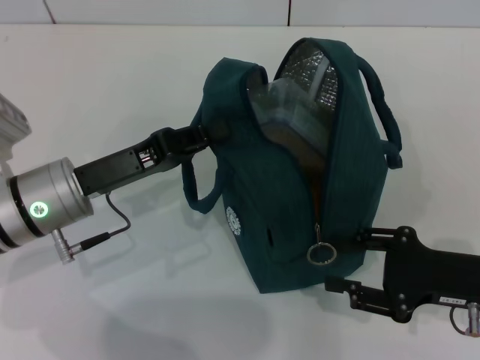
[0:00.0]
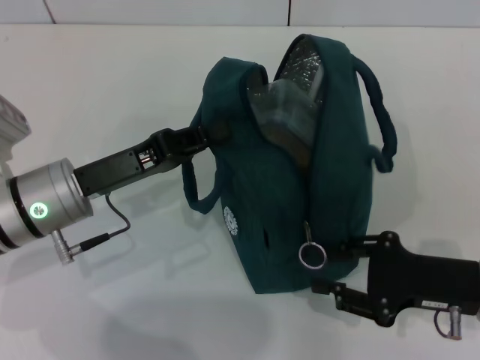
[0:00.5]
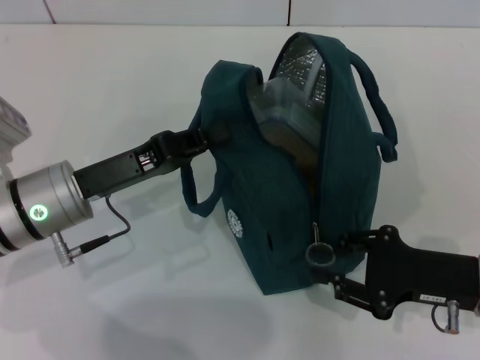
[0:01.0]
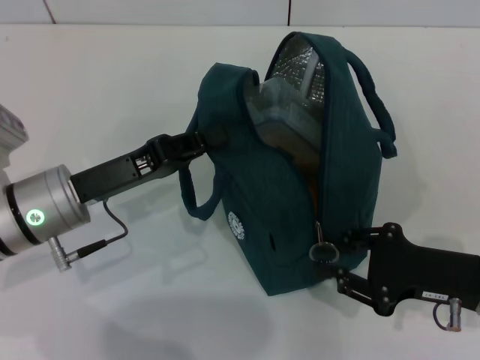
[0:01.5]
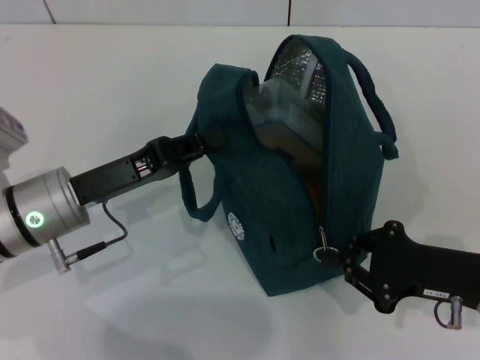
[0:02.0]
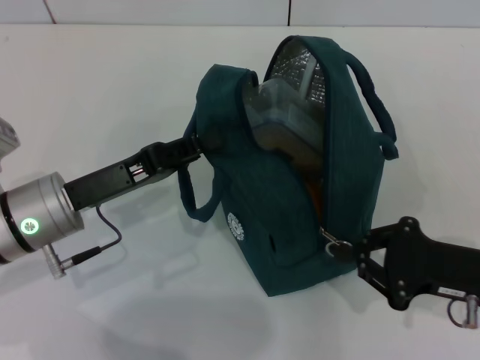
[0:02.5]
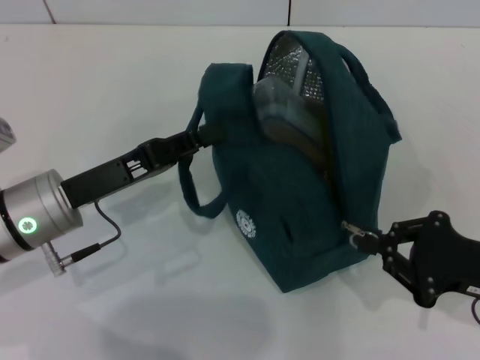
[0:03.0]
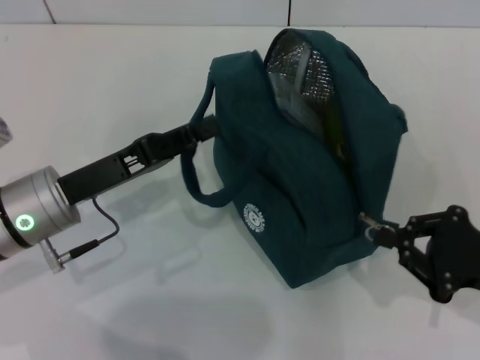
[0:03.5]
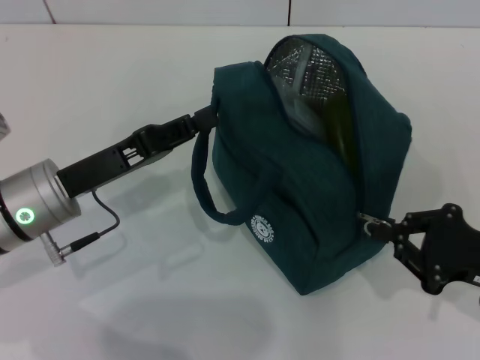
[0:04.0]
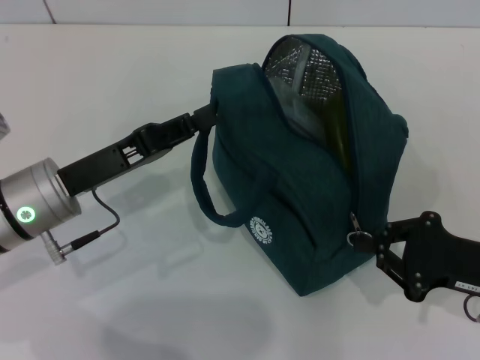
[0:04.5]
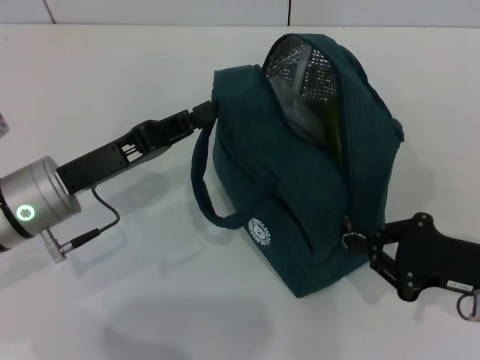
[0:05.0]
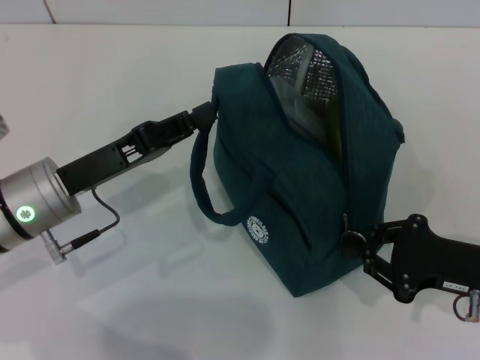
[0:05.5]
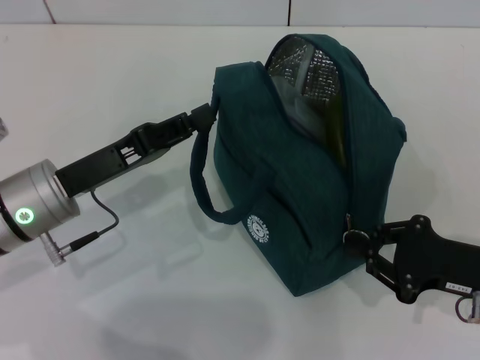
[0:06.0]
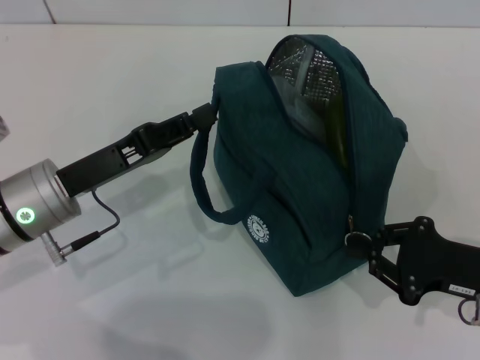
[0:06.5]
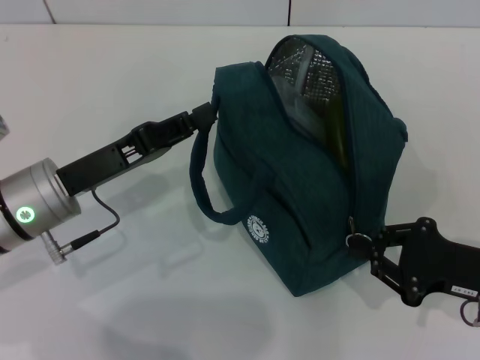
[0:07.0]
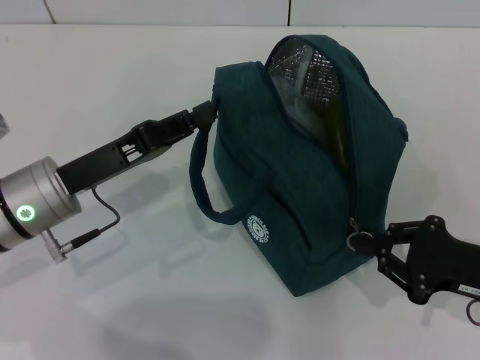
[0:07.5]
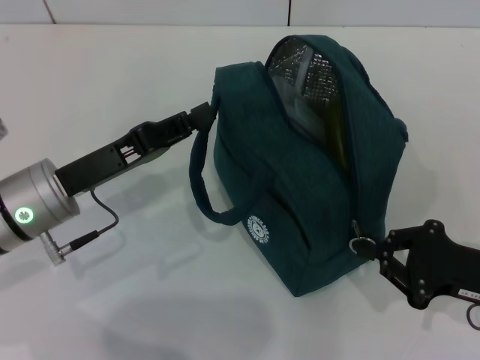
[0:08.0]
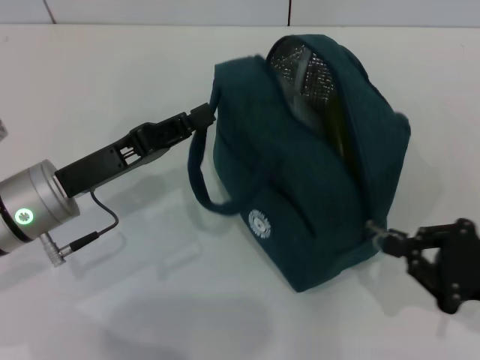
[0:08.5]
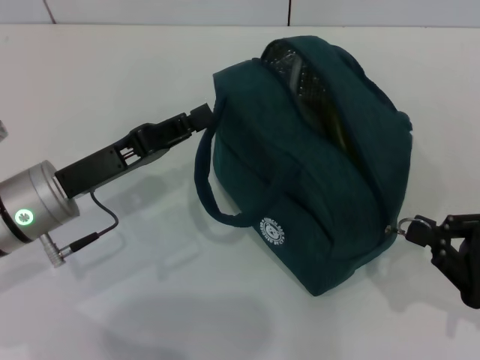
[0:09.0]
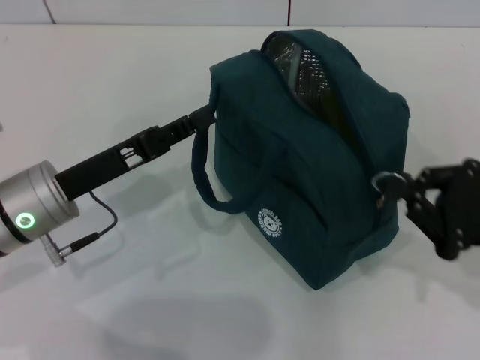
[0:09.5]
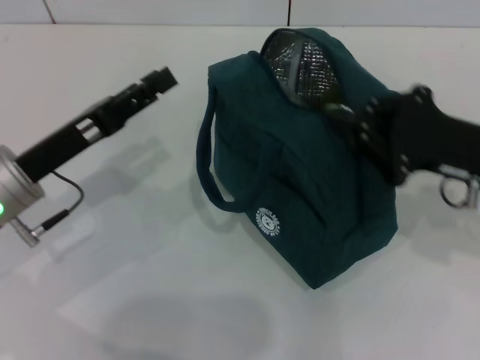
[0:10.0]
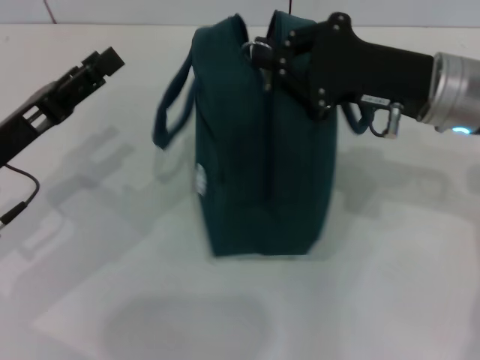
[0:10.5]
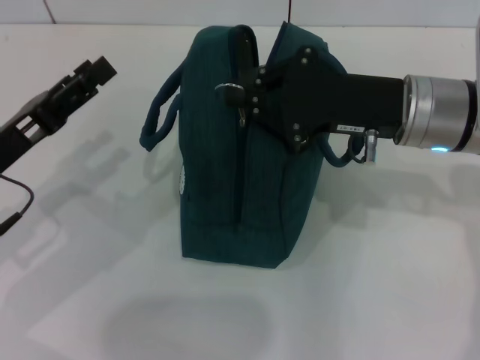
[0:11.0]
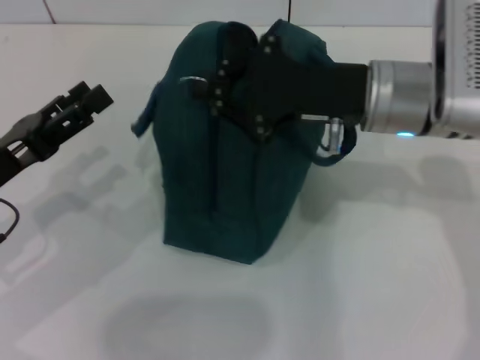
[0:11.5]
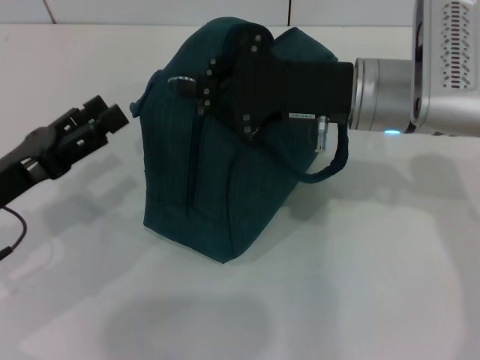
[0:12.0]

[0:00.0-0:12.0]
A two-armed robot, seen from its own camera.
Step, 0:00.0 to 0:03.5: Hold the lunch bag with your left hand.
0:00.0 to 0:02.0: The right gripper closes up.
0:02.0 to 0:06.0: The grippers move only a little.
0:06.0 to 0:08.0: Both grippers stay about where they are.
0:08.0 to 0:10.0: The right gripper travels upward and forward by roughly 10 cm; the left gripper opens its fingers.
0:10.0 to 0:12.0: The right gripper goes some 15 cm to the left. The left gripper moves some 5 cm, and opens its fingers.

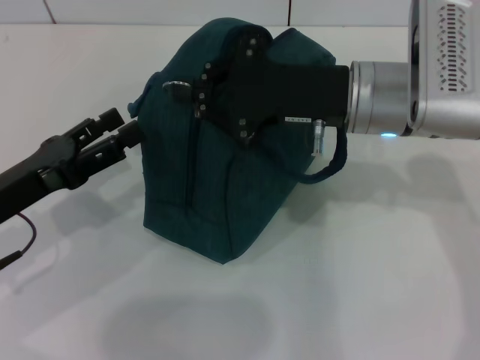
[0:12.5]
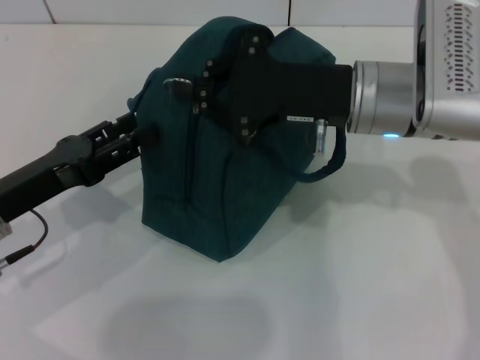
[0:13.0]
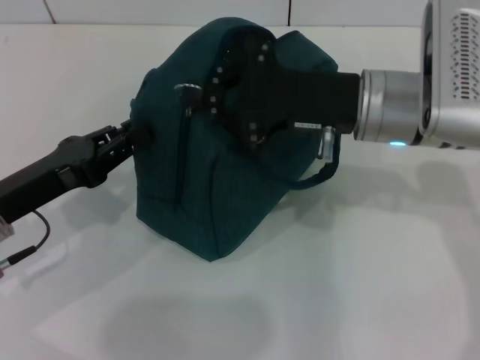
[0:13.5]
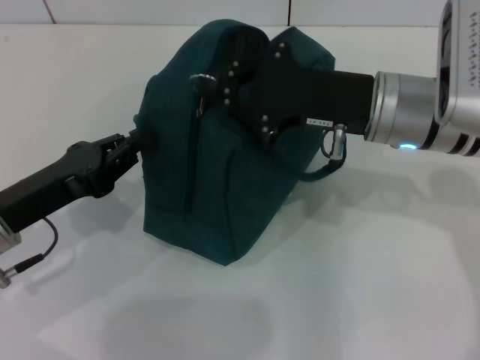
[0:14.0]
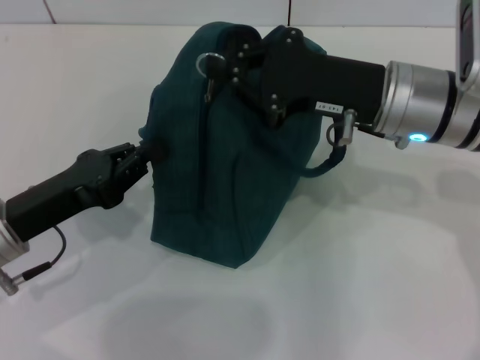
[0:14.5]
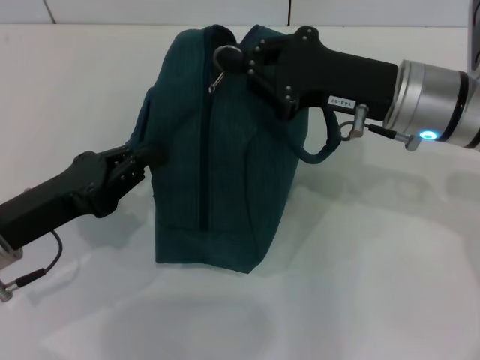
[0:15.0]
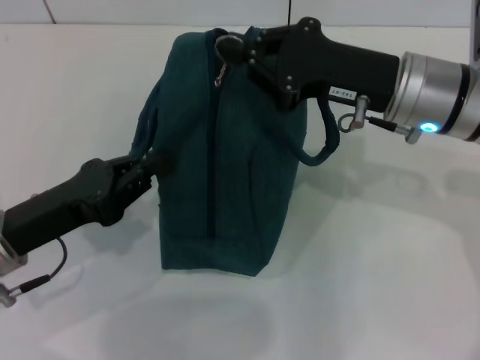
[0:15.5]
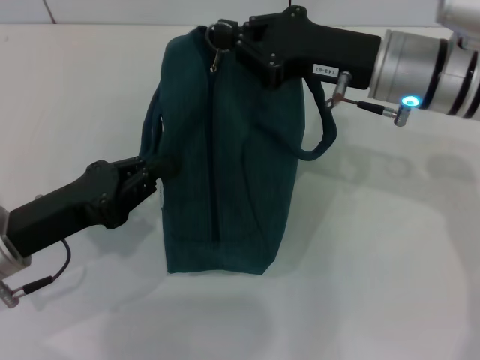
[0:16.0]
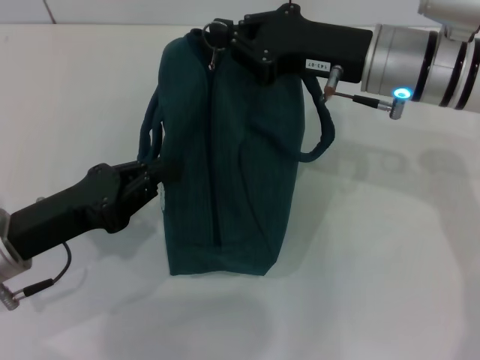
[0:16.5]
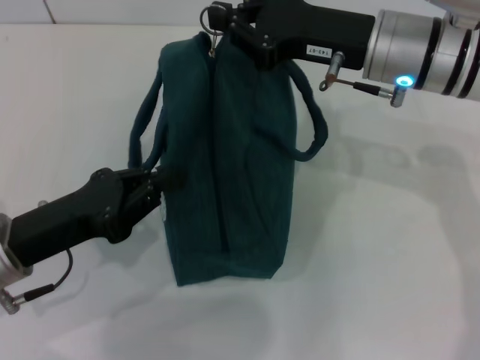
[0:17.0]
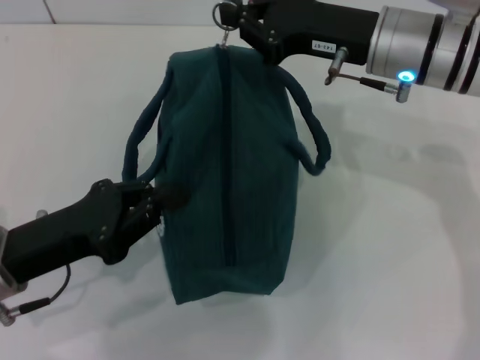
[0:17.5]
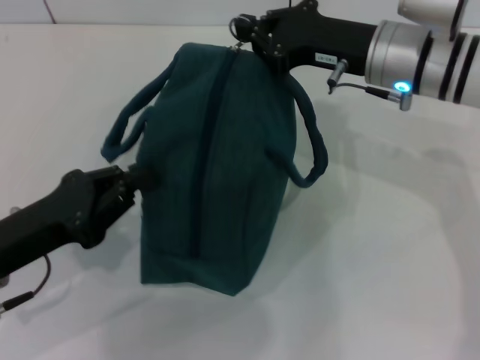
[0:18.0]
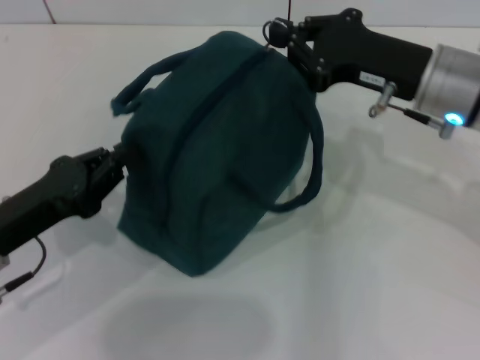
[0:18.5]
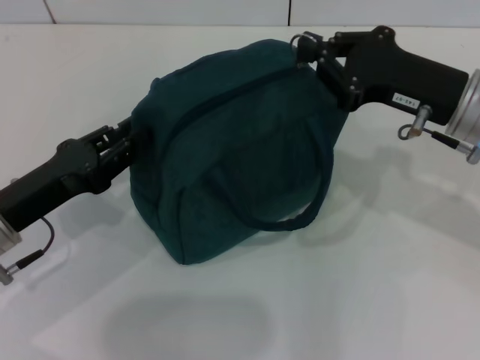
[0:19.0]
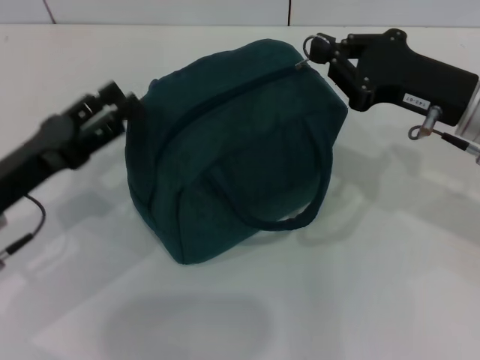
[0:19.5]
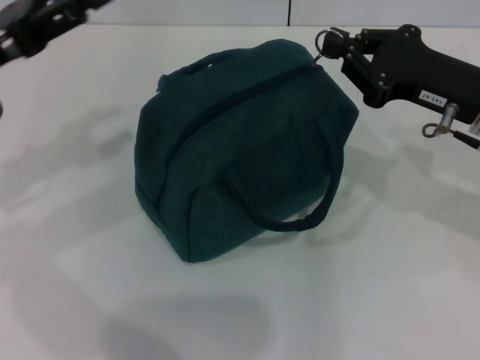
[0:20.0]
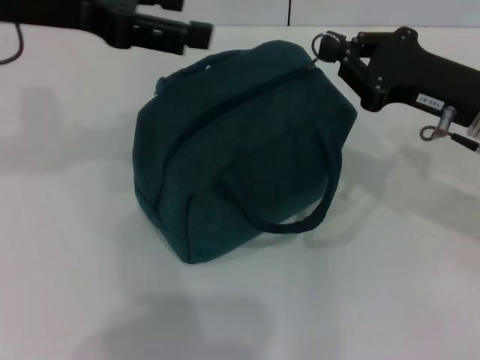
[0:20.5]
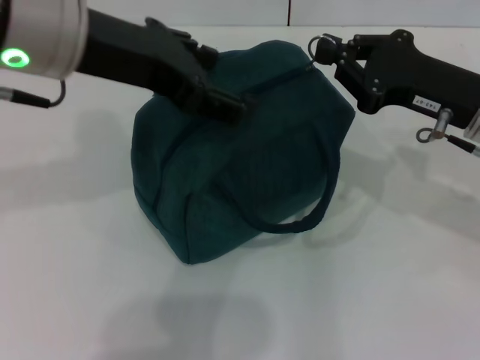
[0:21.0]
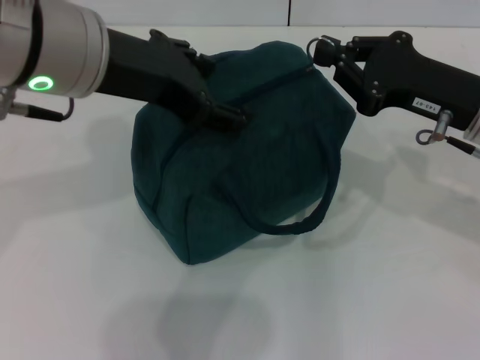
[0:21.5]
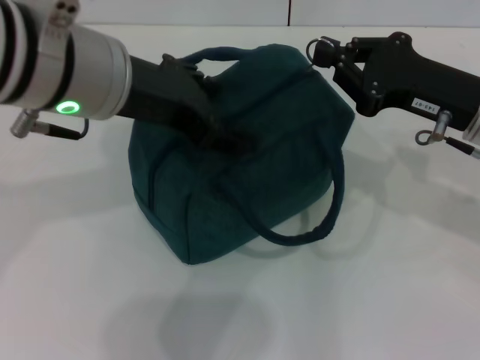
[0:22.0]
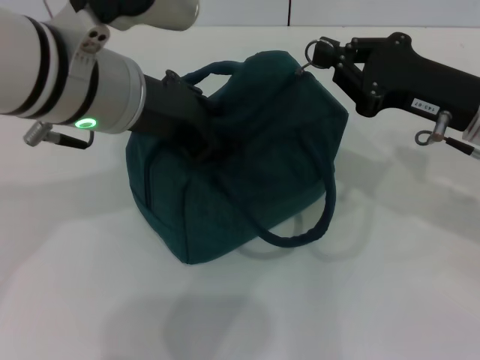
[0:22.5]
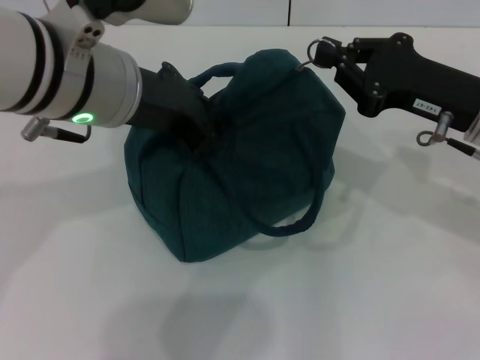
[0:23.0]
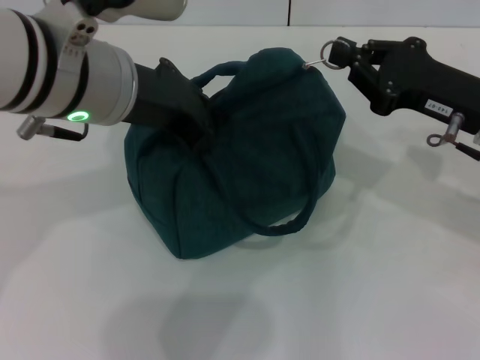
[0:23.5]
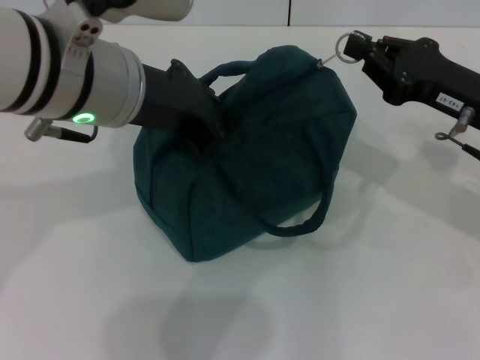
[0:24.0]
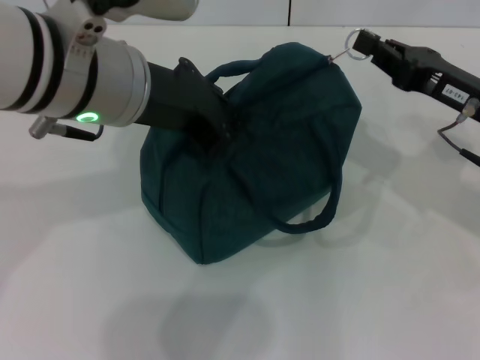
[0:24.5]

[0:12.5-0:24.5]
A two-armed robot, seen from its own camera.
0:12.5 to 0:14.5: The left gripper closes its fingers.
0:16.5 to 0:18.5: The right gripper changes place by roughly 5 cm.
0:18.5 to 0:20.5: The left gripper is displaced upward and forward by roughly 25 cm, and opens its fingers, while the right gripper moves roughly 5 cm.
0:20.5 to 0:22.5: The left gripper moves to the right, about 10 cm.
0:22.5 to 0:24.5: The left gripper closes.

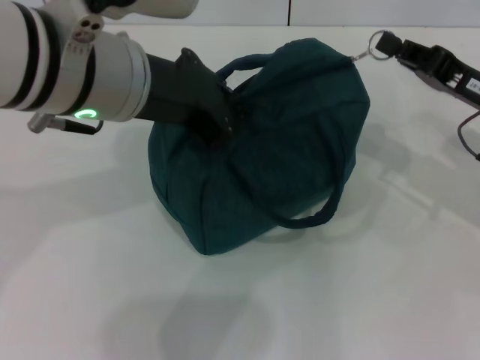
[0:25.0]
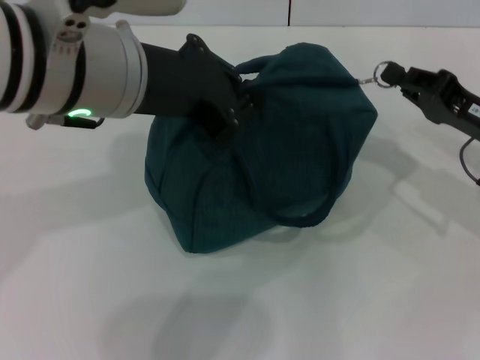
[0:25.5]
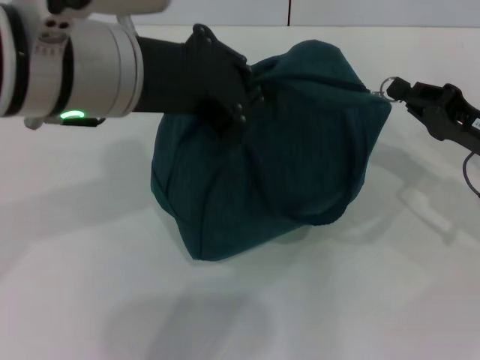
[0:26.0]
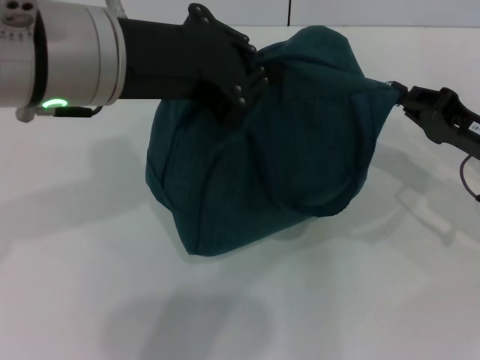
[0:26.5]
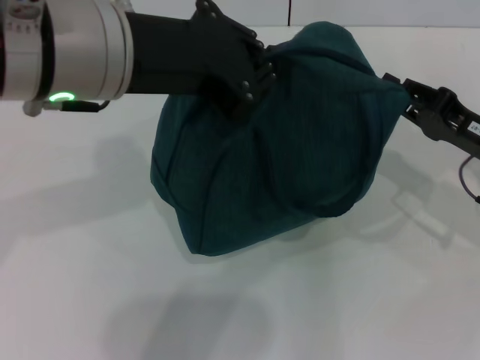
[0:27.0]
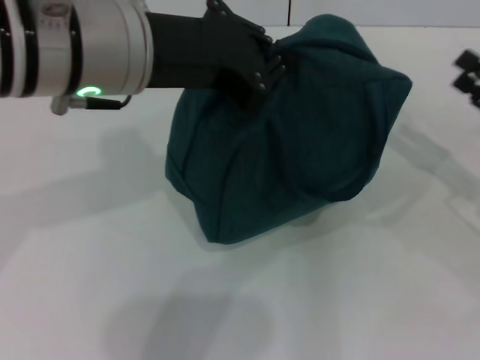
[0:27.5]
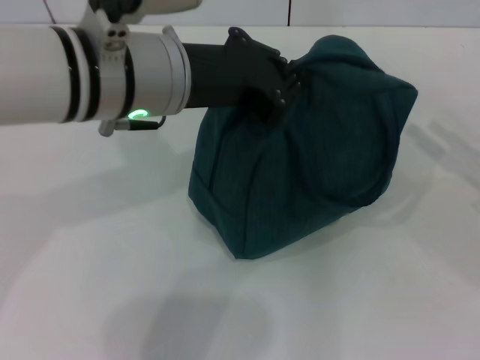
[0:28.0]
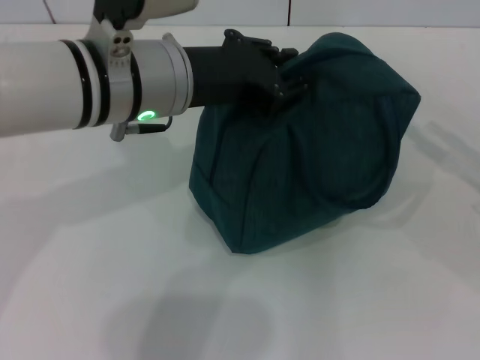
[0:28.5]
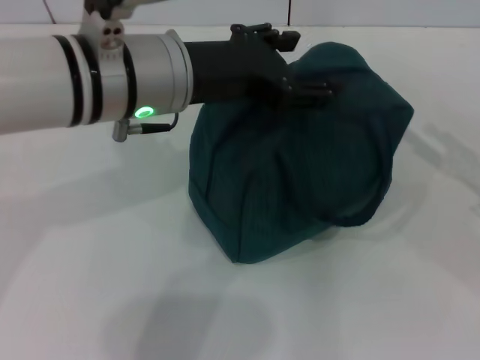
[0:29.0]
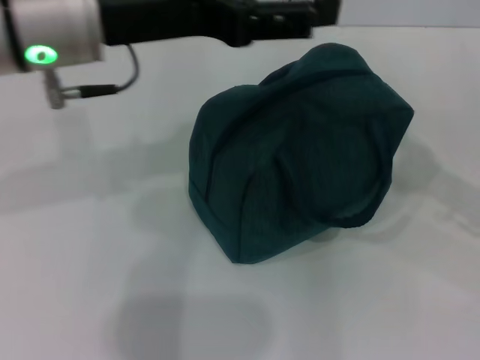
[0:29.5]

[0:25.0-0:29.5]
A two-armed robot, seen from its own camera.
Step, 0:25.0 to 0:27.0: Zip up the lunch bag with your right hand.
Step, 0:27.5 to 0:28.5: Hold the lunch bag with your left hand.
0:27.0 to 0:29.5: The left gripper opens its fingers. Meanwhile the right gripper is displaced upward and to the right by about 10 cm, and opens.
